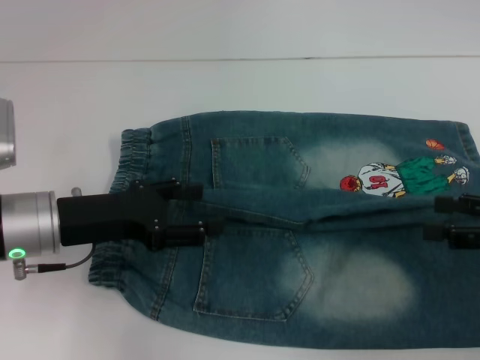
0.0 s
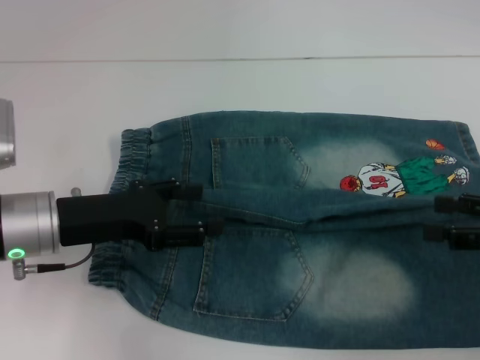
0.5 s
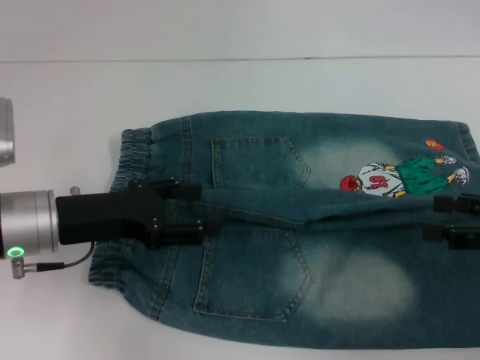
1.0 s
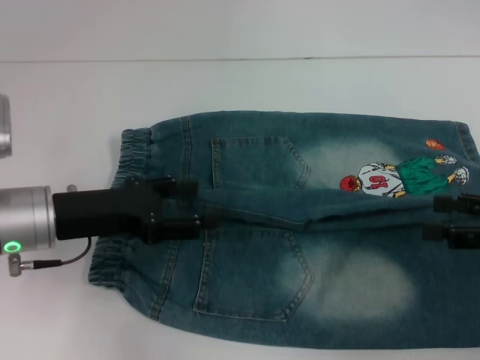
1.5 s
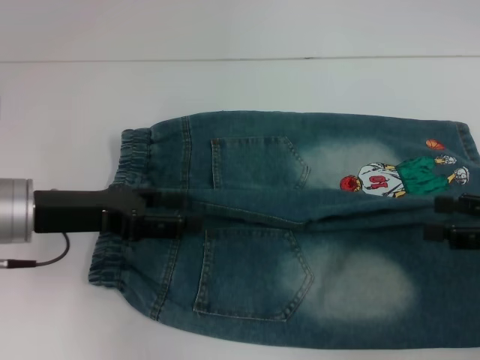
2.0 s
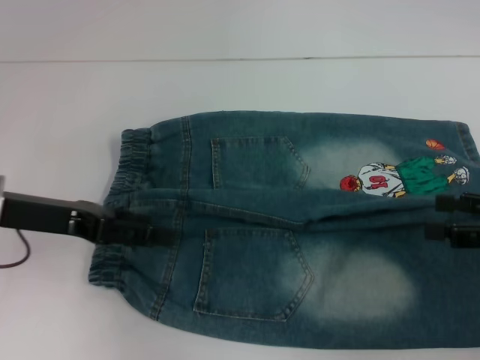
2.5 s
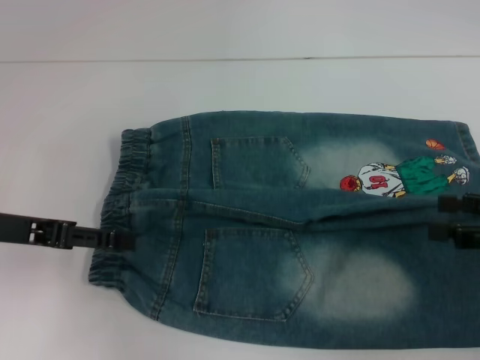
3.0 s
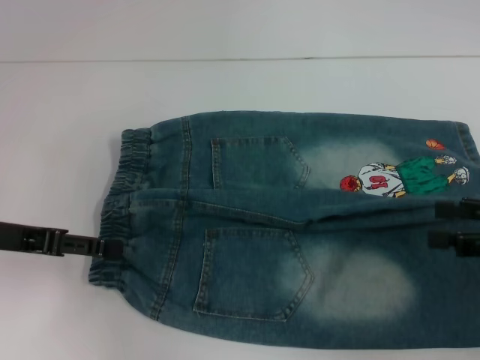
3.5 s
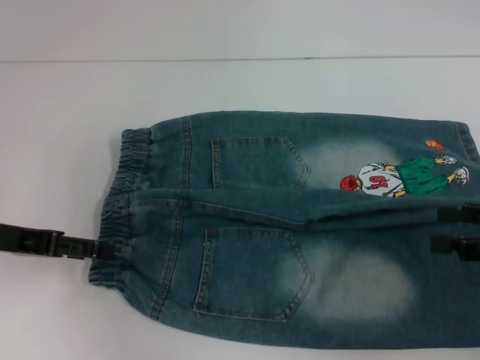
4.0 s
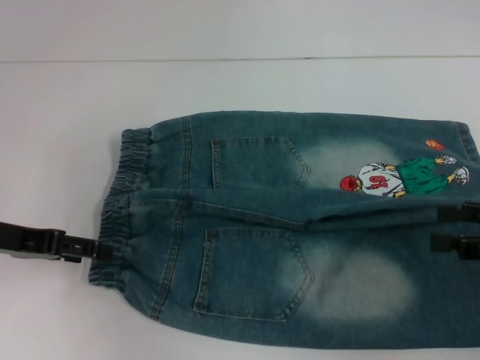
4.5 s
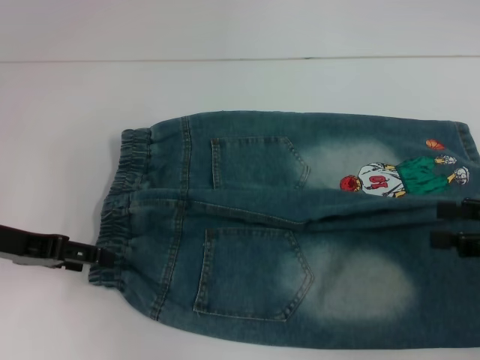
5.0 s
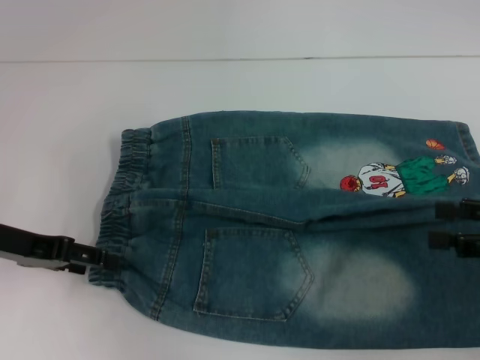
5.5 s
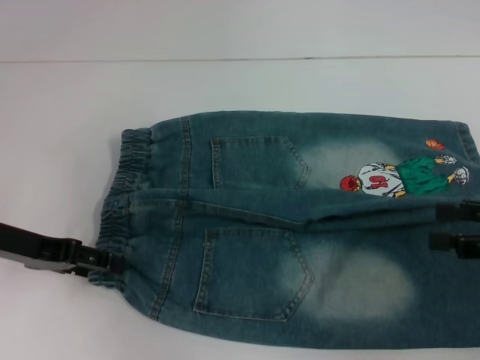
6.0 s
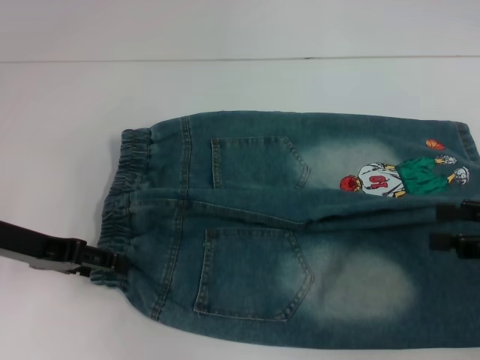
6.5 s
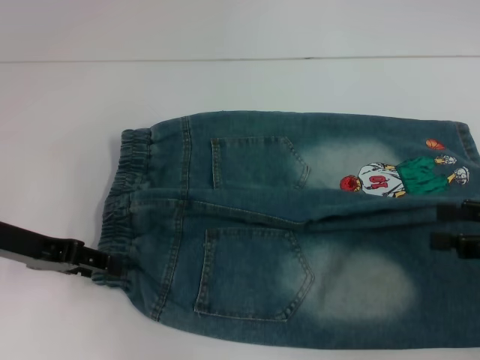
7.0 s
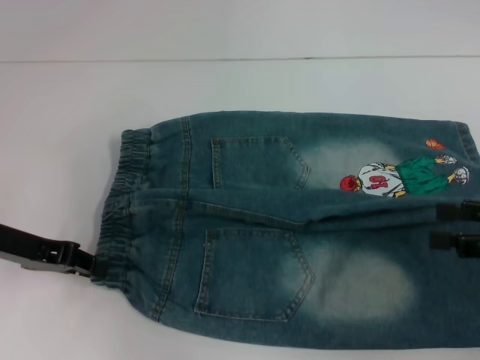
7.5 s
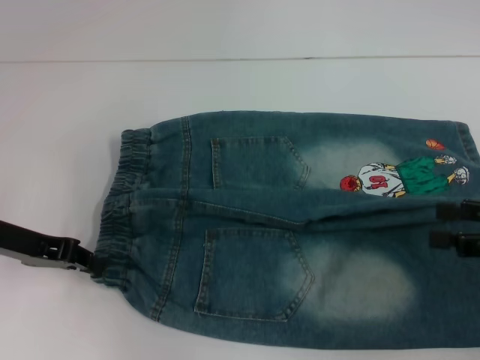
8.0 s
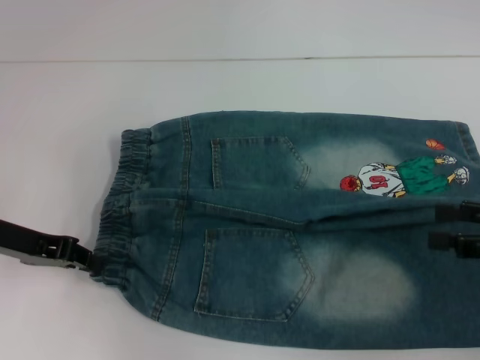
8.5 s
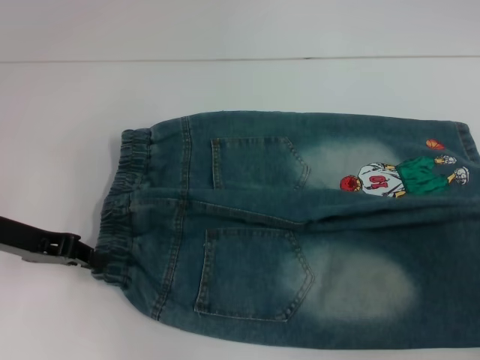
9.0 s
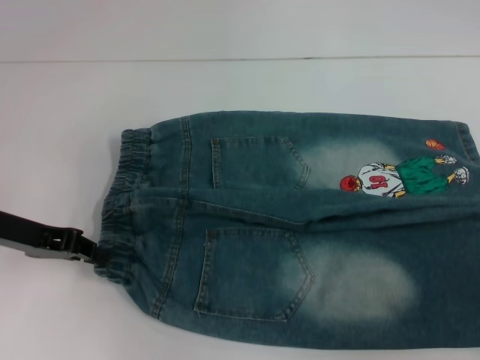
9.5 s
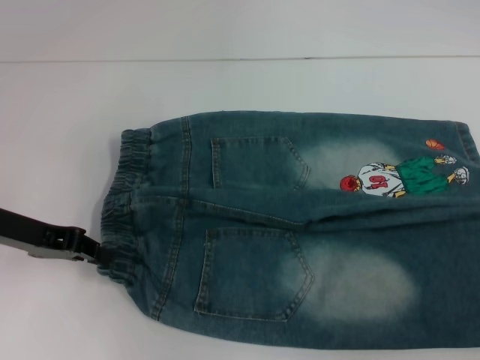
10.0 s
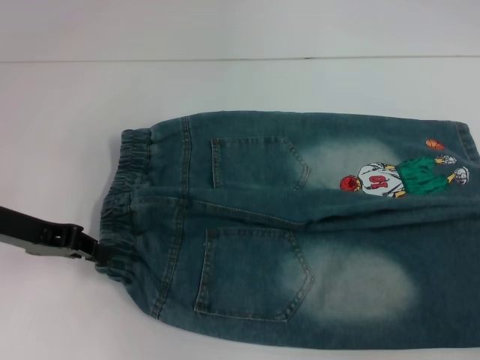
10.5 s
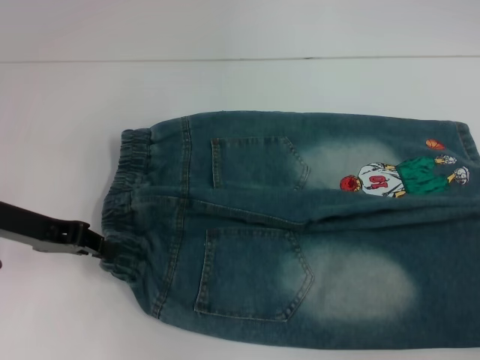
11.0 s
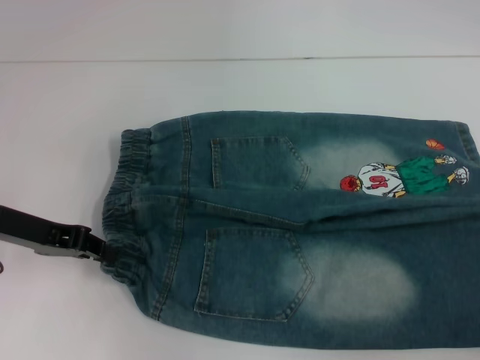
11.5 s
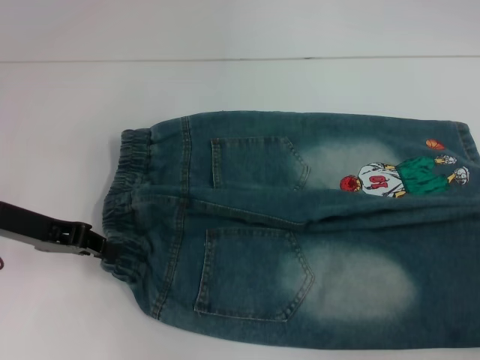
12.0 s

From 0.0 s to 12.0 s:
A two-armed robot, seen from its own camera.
Step, from 0.0 s to 7.5 s: Hold the lower left waistband with your left hand.
From 0.0 s to 2.0 s: The grippers make only small movements.
From 2.0 s to 4.0 s: The left gripper goes about 5 cm to the left.
From 4.0 s to 6.0 s: There are only small adjustments of the grippers.
From 6.0 s to 8.0 s: The left gripper closes up.
From 8.0 s to 10.0 s: The right gripper heads to the right and backward, covering about 10 cm.
From 10.0 s to 12.0 s: There are only small adjustments of the grippers.

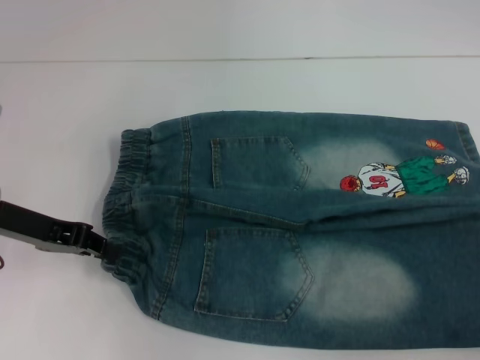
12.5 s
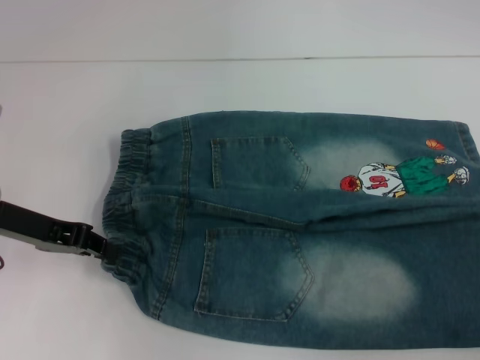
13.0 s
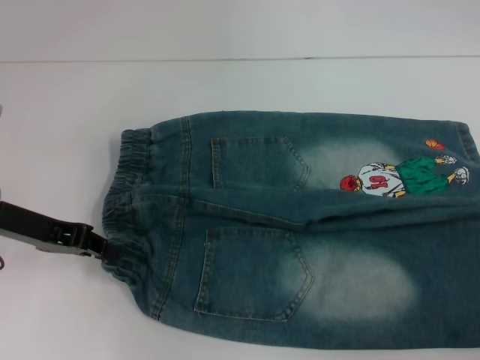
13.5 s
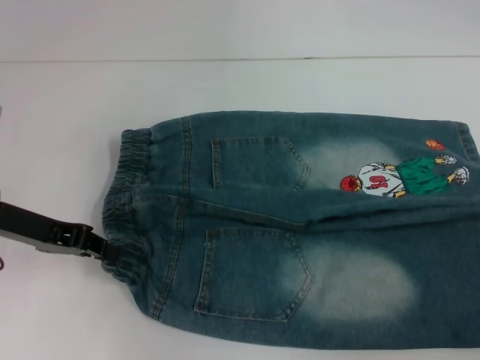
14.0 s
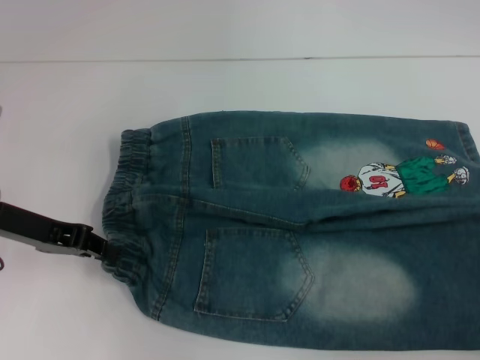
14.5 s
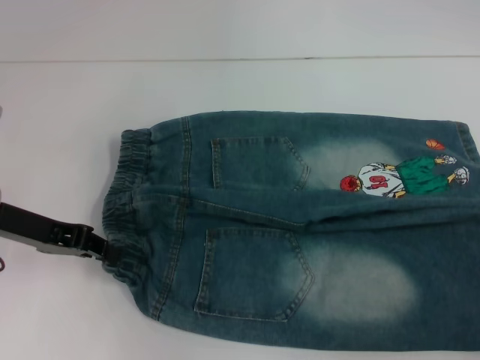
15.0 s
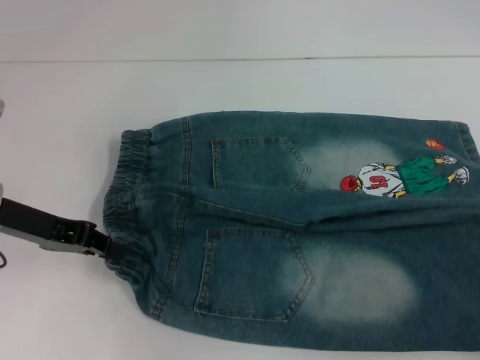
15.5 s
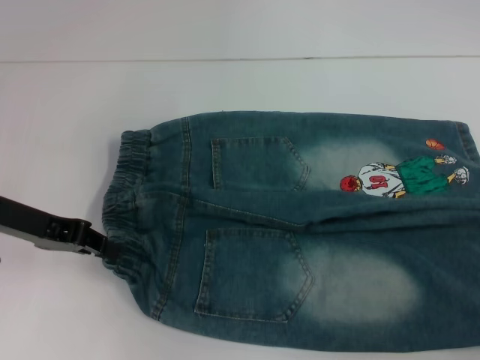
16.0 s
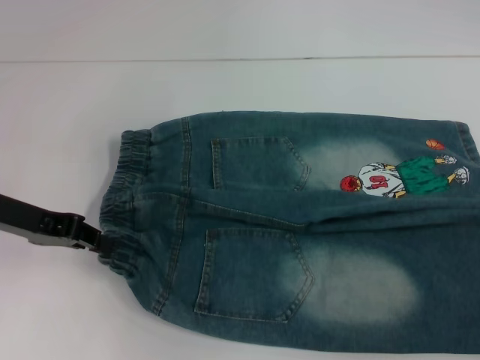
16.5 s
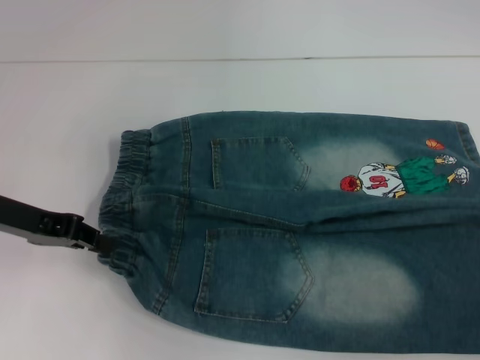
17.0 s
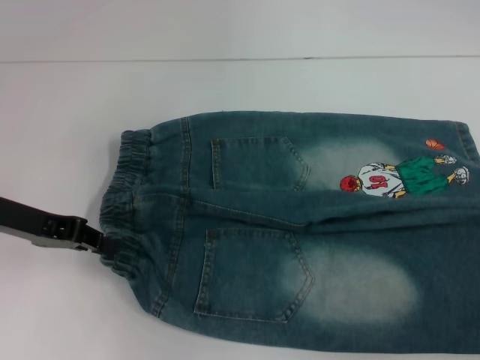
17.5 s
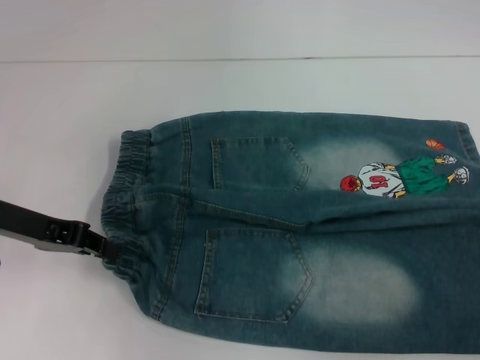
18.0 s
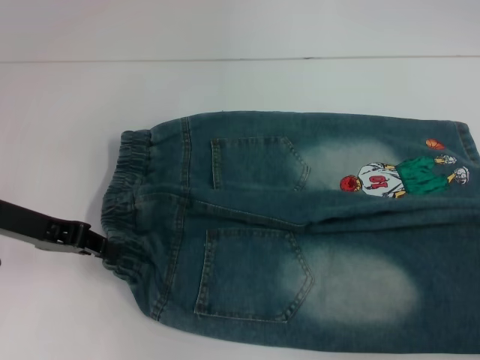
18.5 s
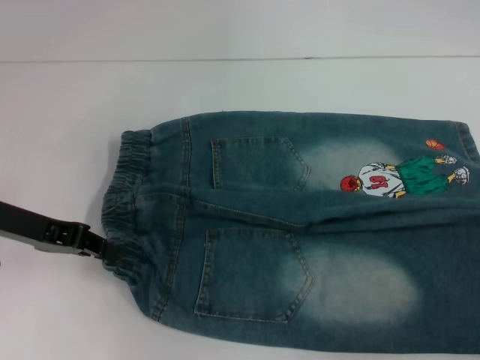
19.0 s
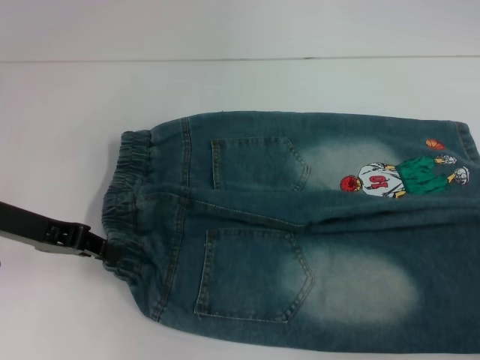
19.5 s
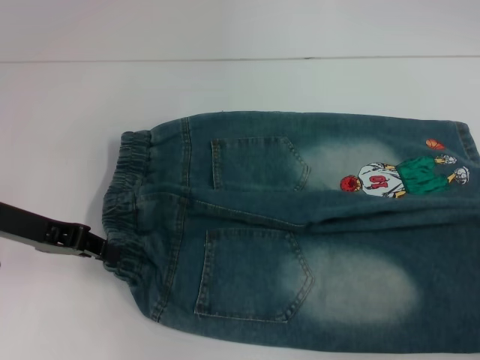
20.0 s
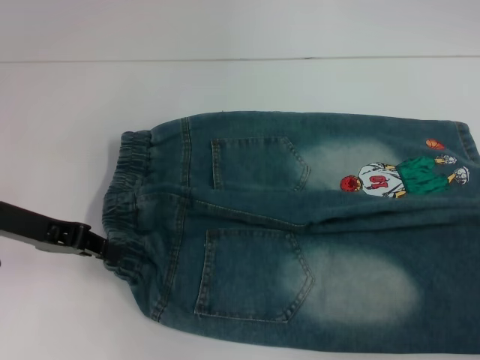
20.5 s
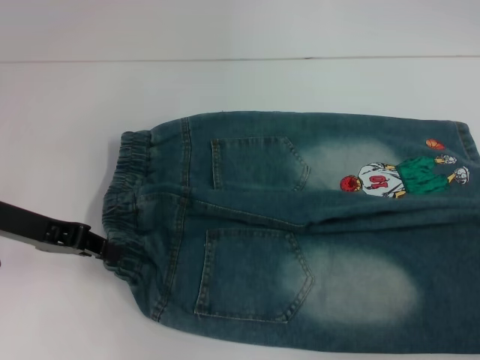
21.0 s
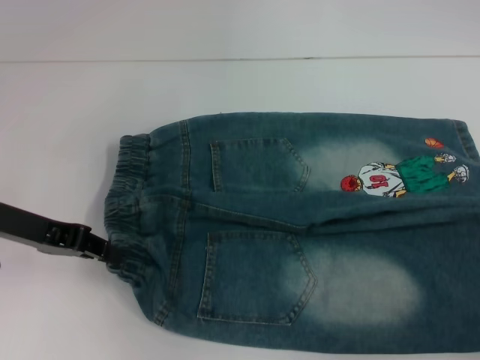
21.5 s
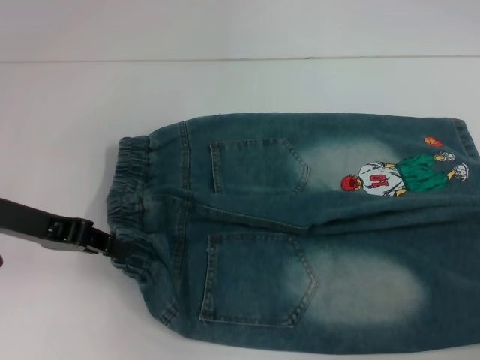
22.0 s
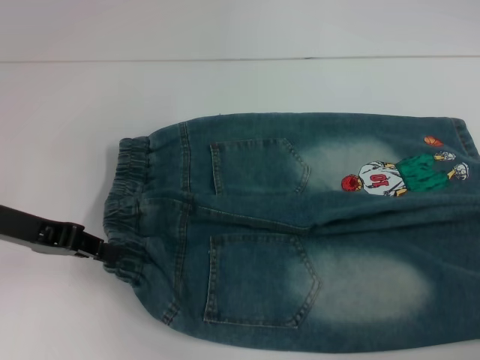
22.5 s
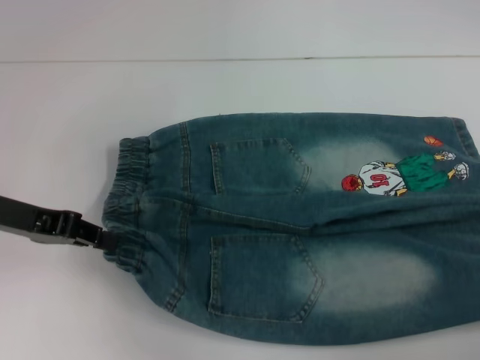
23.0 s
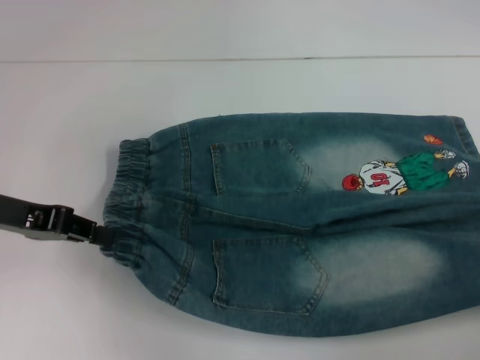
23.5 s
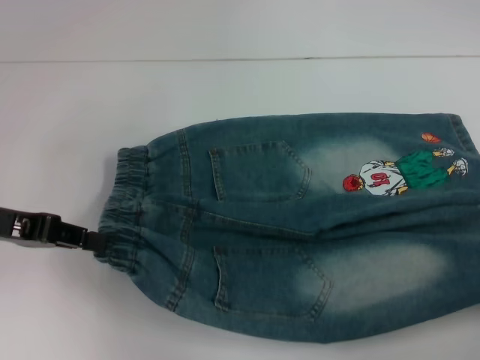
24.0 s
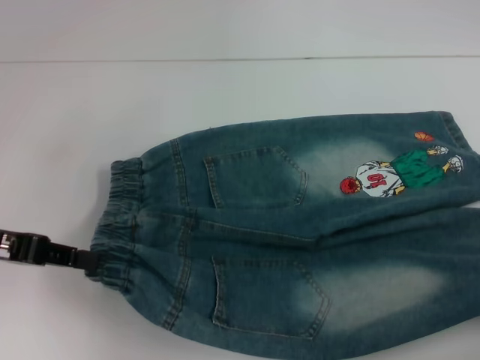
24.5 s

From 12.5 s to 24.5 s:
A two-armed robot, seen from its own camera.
Step, from 12.5 s to 21.0 s: Grab the lower right pant leg with your right hand.
From 14.5 s to 16.5 s: There are only small adjustments of the grippers.
From 20.5 s to 22.5 s: The grippers move only a little.
From 22.5 s to 24.5 s: The grippers move only a little.

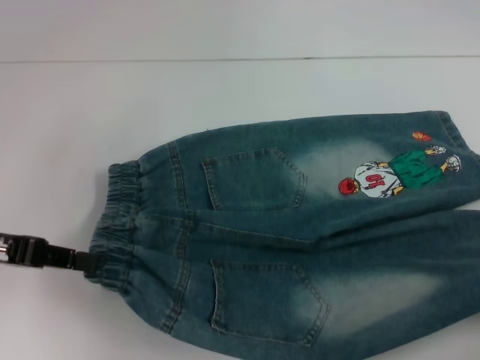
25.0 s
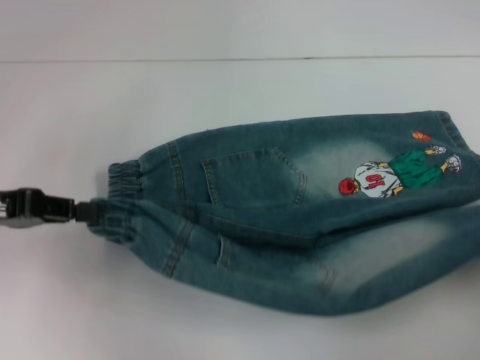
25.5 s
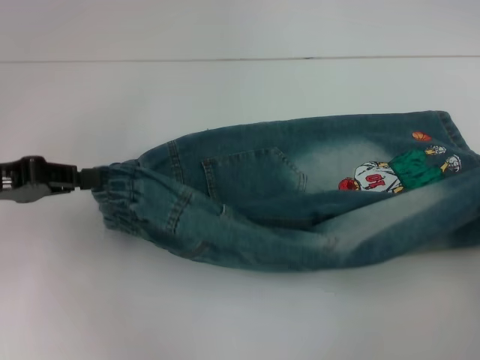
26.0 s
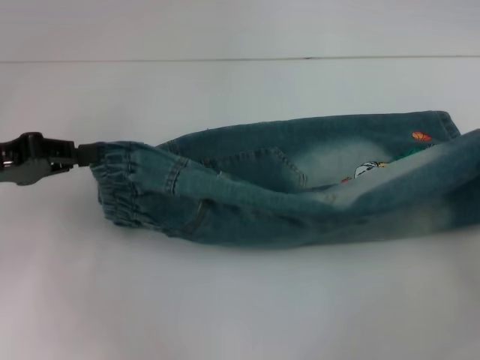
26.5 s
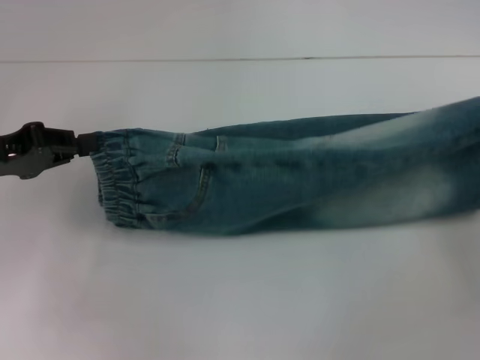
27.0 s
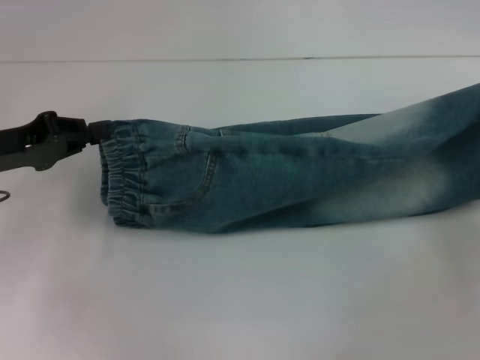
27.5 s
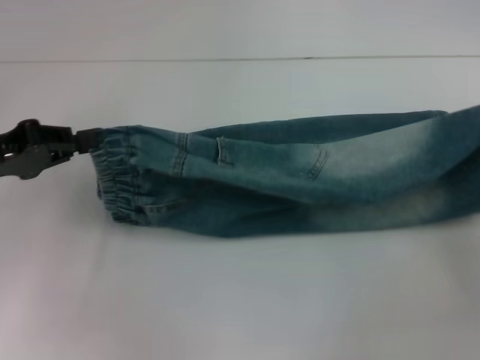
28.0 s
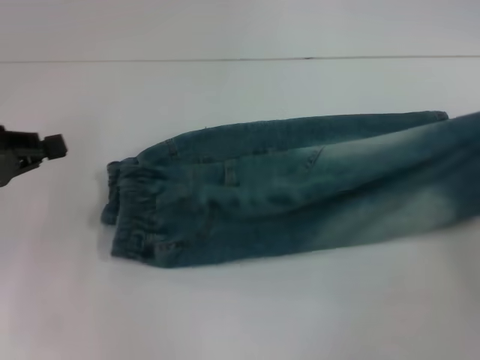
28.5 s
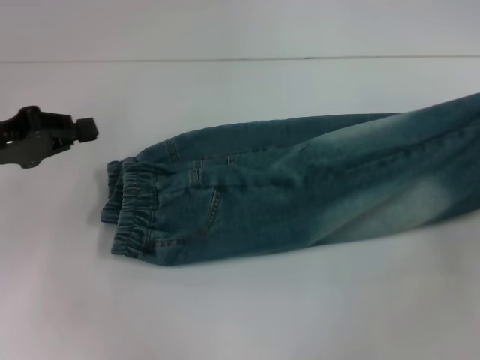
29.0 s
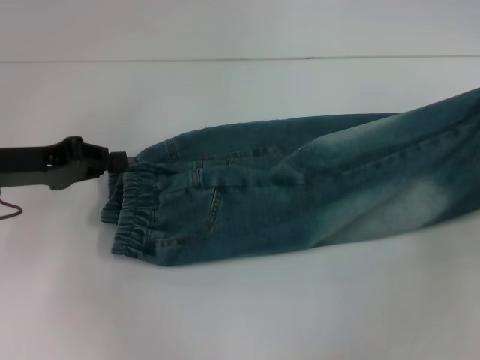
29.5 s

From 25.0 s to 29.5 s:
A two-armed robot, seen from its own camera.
From 25.0 s to 27.0 s: The right gripper goes approximately 10 cm forward.
From 27.0 s to 29.5 s: The grippers stay close to where they were, moving slightly.
